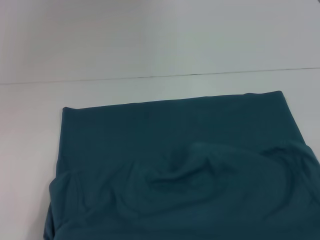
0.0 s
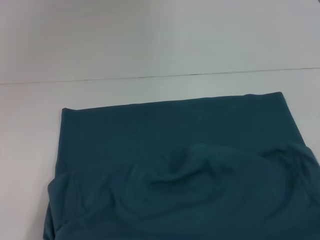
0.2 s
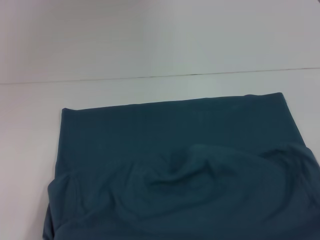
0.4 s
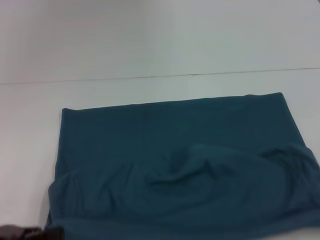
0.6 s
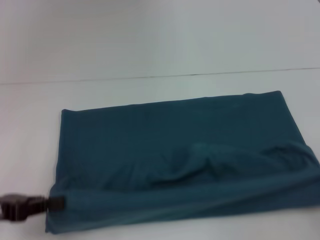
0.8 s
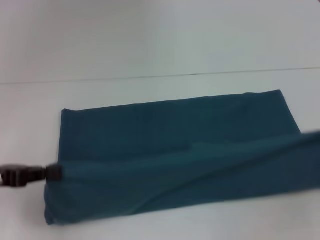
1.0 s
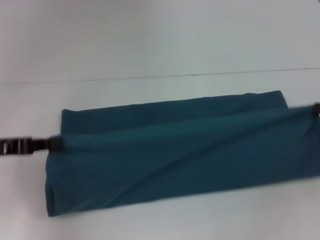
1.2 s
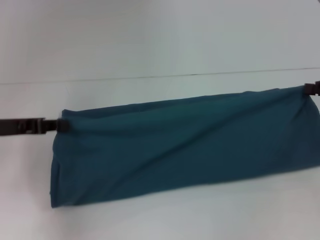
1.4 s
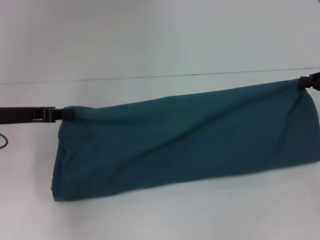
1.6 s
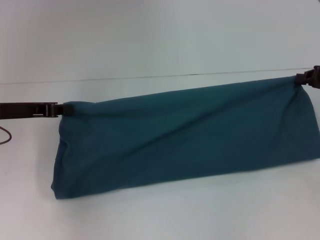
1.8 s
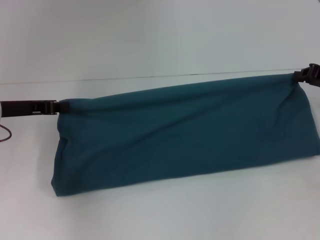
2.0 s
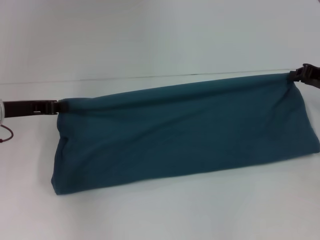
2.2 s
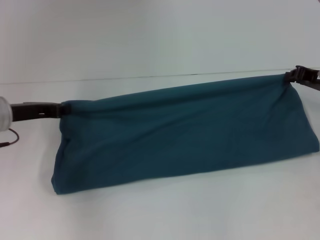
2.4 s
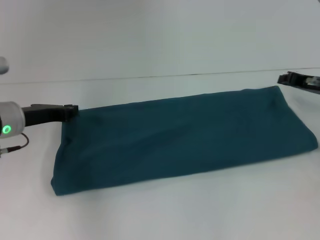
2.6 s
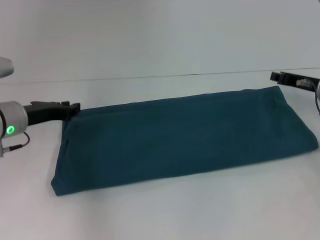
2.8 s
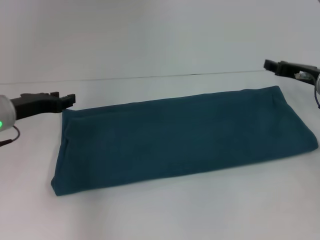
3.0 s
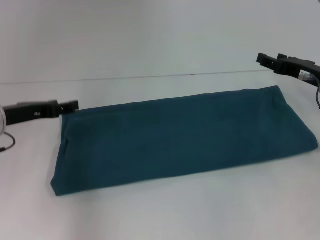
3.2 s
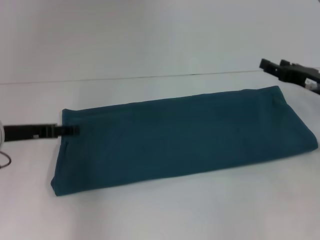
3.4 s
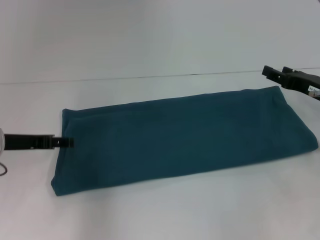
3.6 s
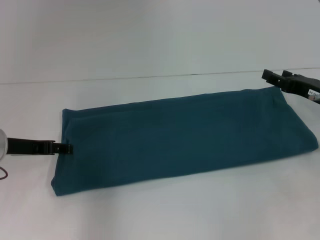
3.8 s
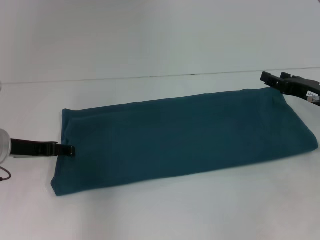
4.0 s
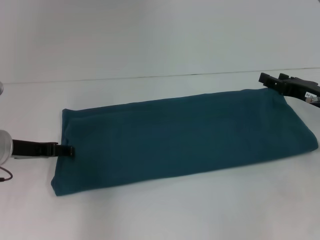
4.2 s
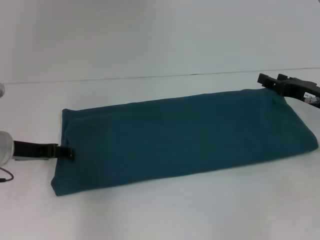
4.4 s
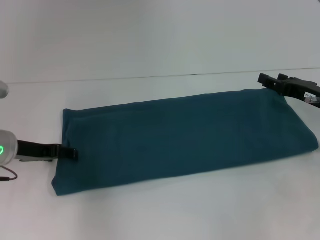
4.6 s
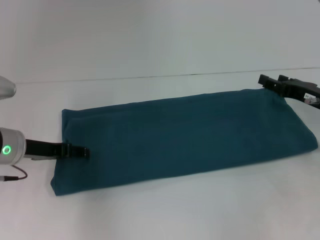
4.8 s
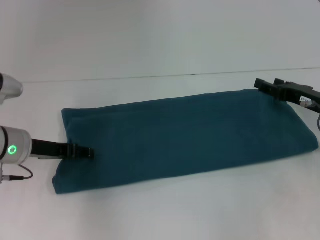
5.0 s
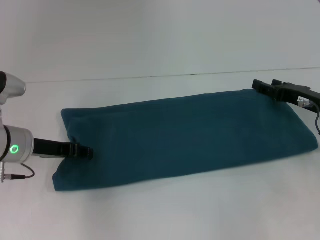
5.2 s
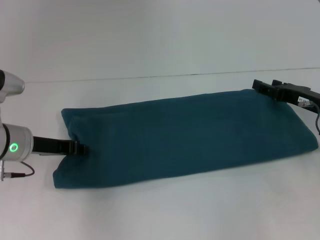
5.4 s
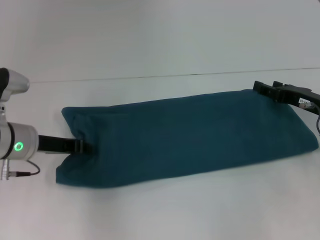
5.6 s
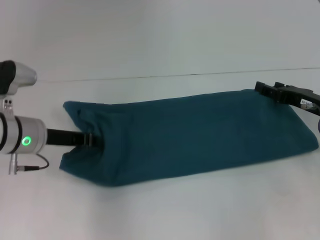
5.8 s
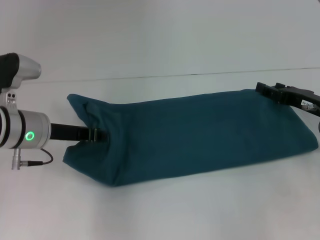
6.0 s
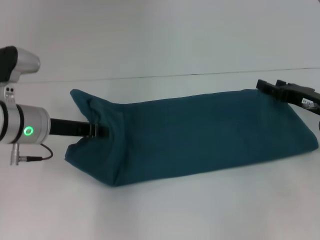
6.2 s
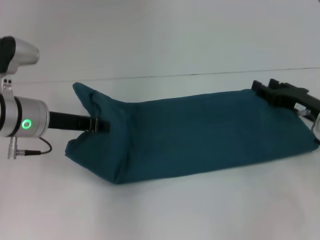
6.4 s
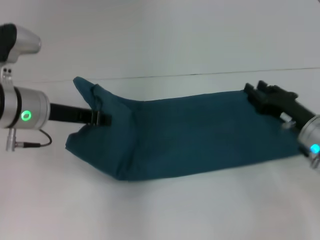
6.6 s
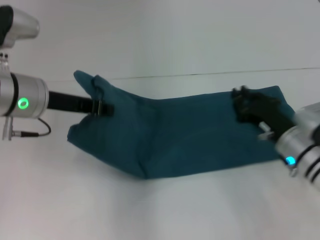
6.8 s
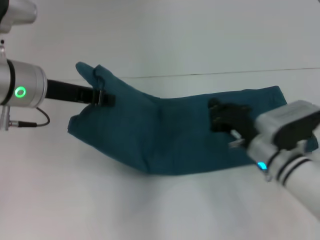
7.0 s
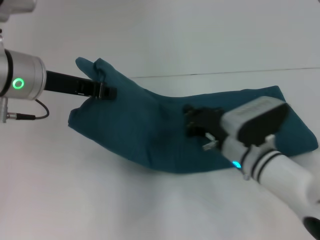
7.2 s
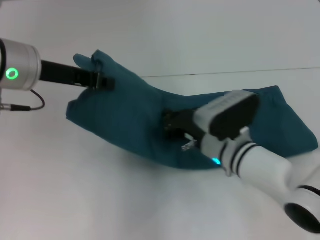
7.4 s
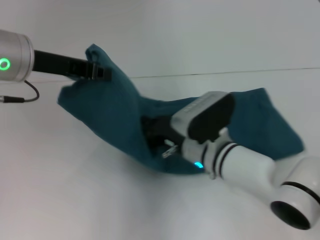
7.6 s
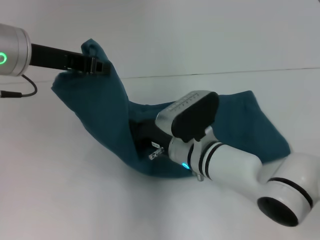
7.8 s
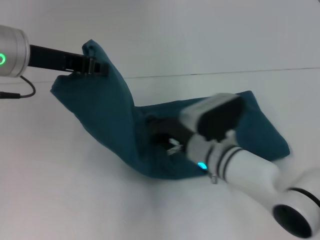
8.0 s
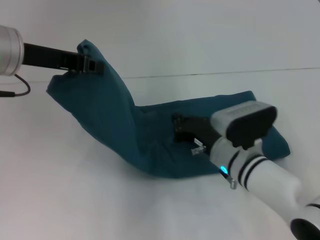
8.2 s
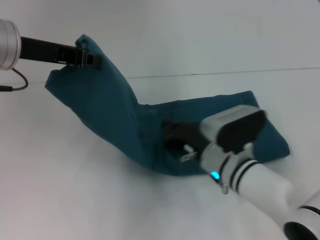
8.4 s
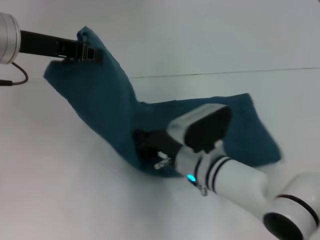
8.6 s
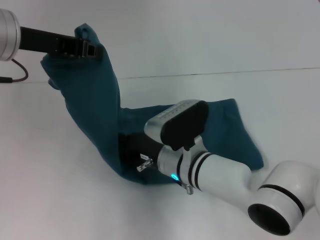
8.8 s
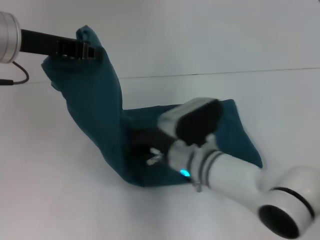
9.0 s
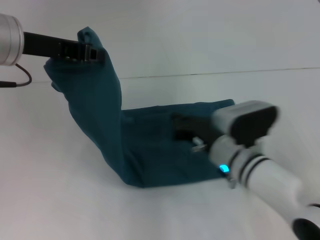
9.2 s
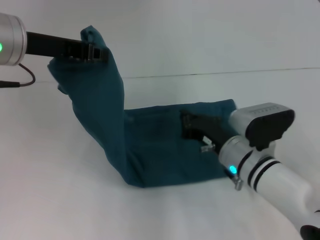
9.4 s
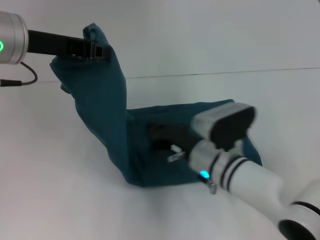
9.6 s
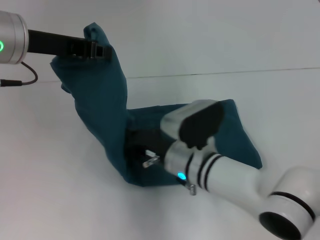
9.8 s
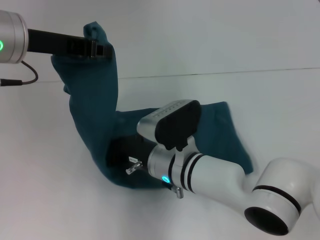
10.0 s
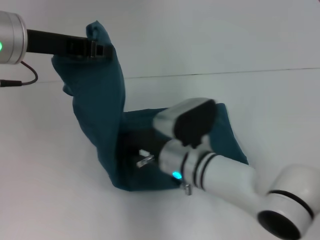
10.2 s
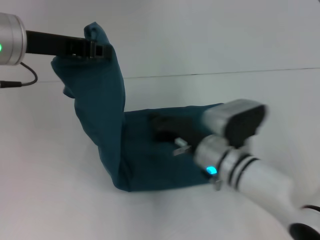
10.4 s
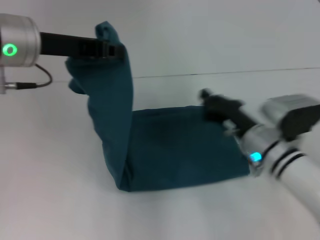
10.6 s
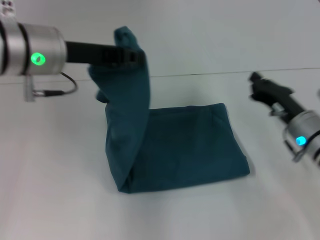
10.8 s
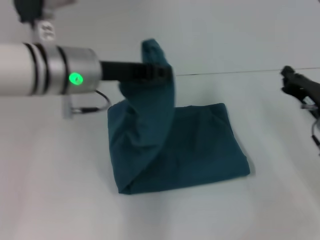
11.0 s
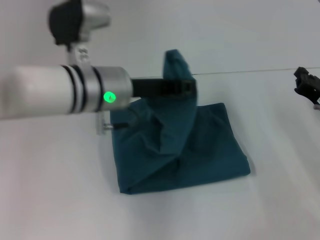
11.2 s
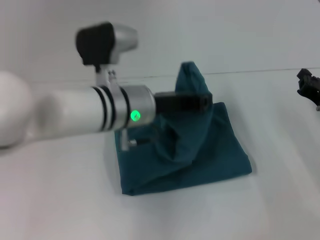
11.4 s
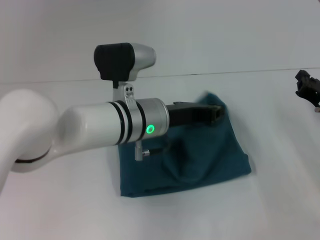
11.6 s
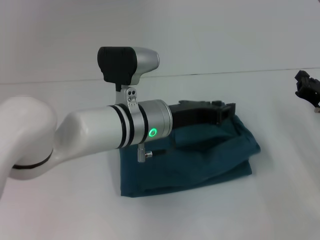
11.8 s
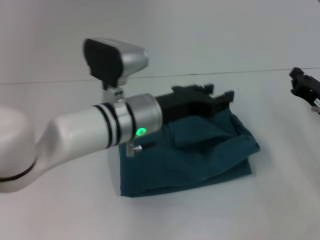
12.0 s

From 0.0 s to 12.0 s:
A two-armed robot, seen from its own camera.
Step, from 0.0 s to 3.0 s: Fold the clothes to the left.
Step, from 0.0 s to 3.0 s: Fold the clothes to the right.
Step, from 3.2 s to 9.0 s: Press the middle of the clothes with your right hand.
Step, from 9.2 s to 11.8 s: Fold the clothes to the left.
From 0.0 s to 1.6 s: The two grippers go some 20 cm forward.
From 1.6 s to 3.0 s: The left gripper opens. Meanwhile the right gripper is displaced to the left by approximately 5 cm.
From 3.0 s to 4.4 s: The right gripper moves approximately 5 cm, and opens its fingers, while the left gripper opens its fingers.
From 4.4 s to 6.0 s: The left gripper heads to the right, covering roughly 5 cm, and closes up.
From 6.0 s to 7.6 s: The left gripper goes roughly 15 cm upward, while the right gripper is displaced to the left by roughly 20 cm, and closes its fingers.
From 9.0 s to 10.4 s: The right gripper swings left and right, some 10 cm each way, with 2 reversals.
From 10.4 s to 12.0 s: The right gripper is displaced to the right by about 20 cm, while the left gripper travels to the right and downward by roughly 20 cm.

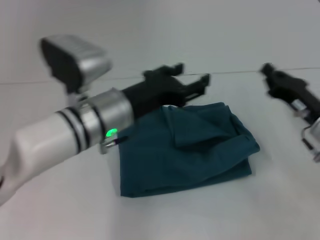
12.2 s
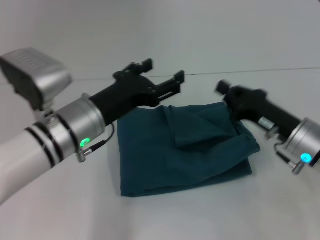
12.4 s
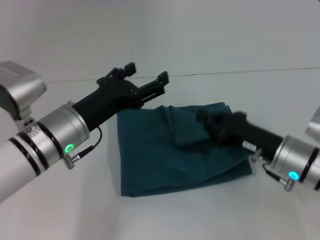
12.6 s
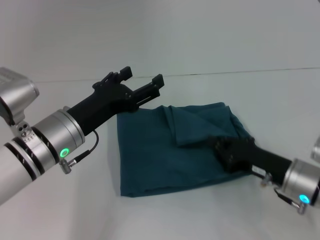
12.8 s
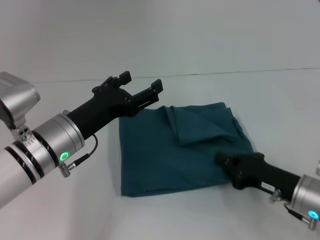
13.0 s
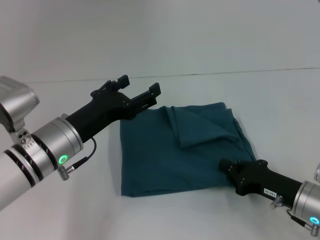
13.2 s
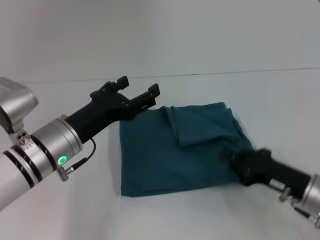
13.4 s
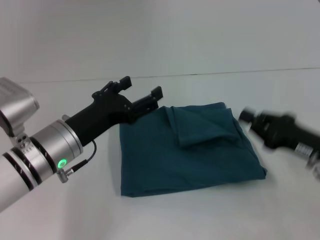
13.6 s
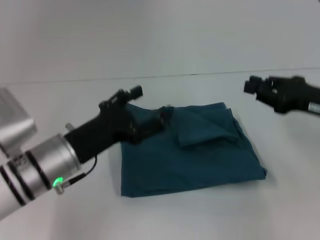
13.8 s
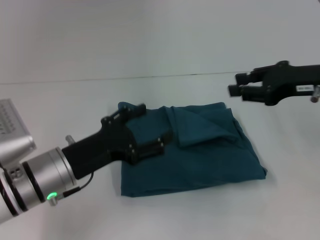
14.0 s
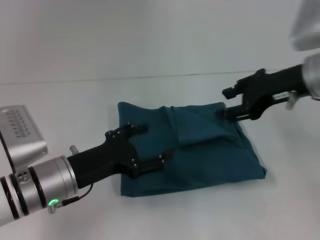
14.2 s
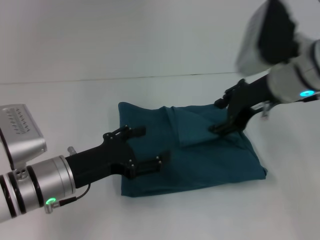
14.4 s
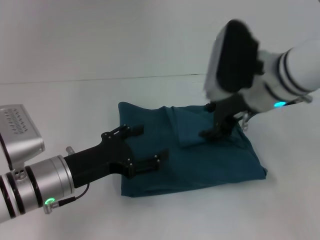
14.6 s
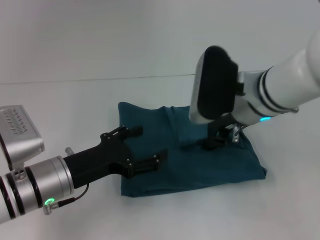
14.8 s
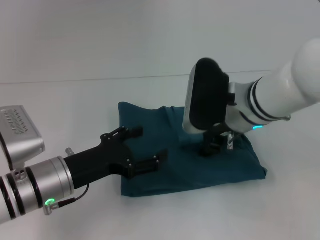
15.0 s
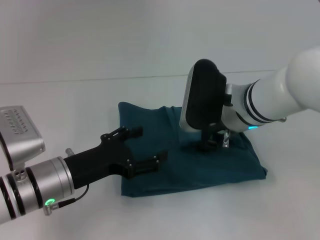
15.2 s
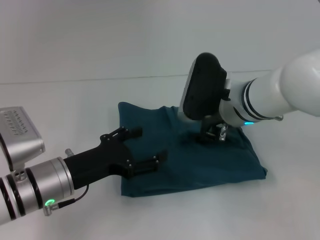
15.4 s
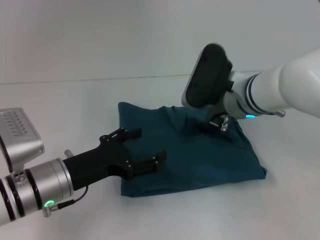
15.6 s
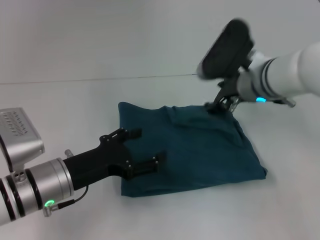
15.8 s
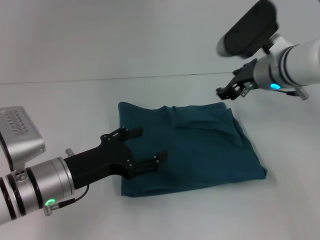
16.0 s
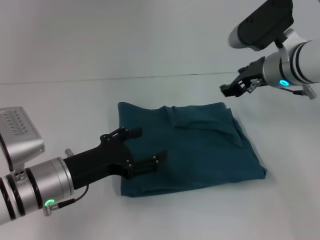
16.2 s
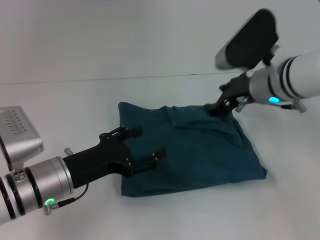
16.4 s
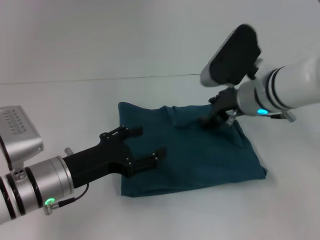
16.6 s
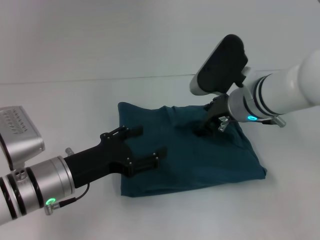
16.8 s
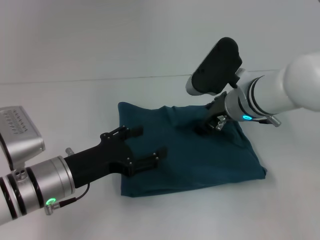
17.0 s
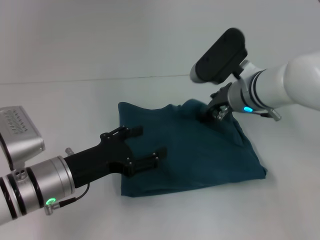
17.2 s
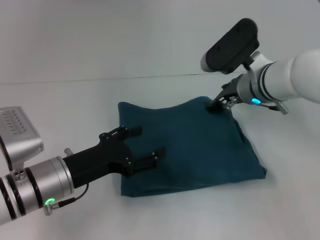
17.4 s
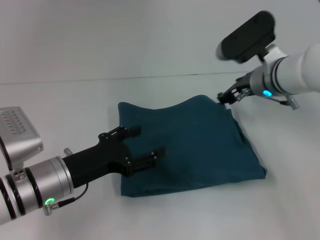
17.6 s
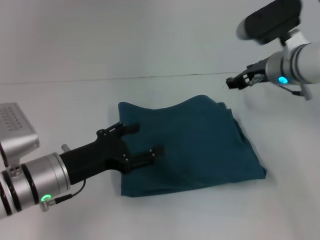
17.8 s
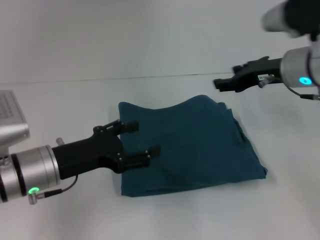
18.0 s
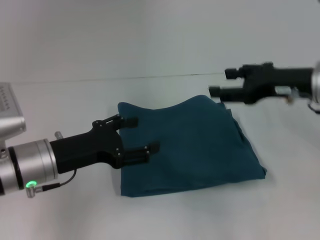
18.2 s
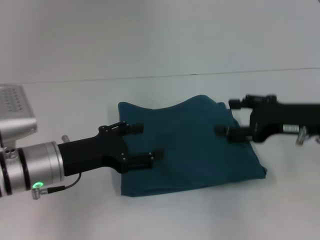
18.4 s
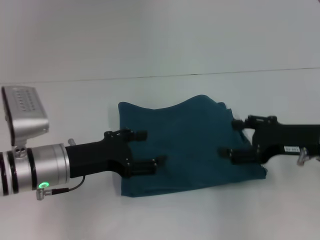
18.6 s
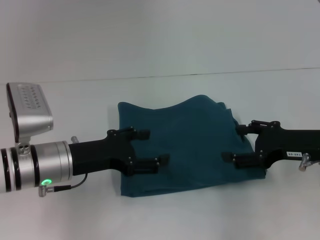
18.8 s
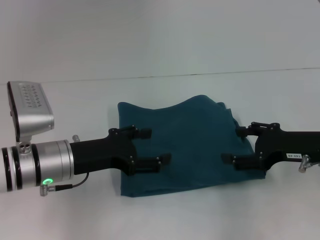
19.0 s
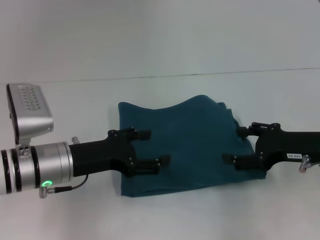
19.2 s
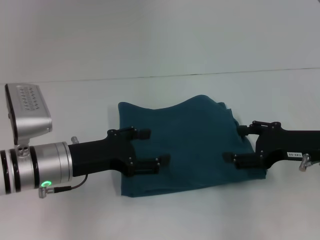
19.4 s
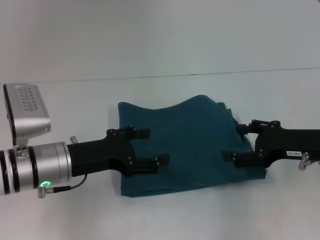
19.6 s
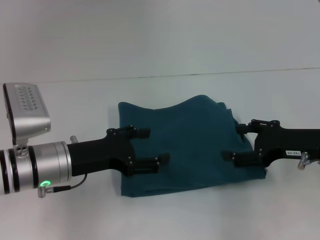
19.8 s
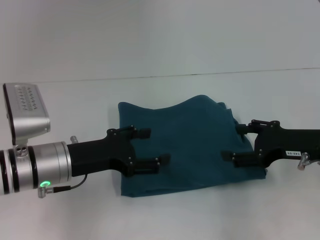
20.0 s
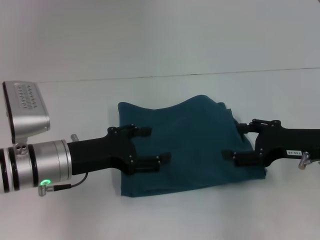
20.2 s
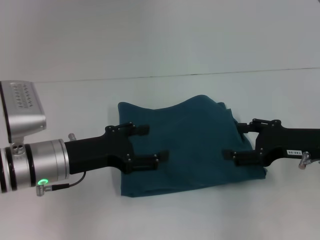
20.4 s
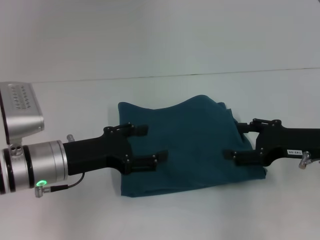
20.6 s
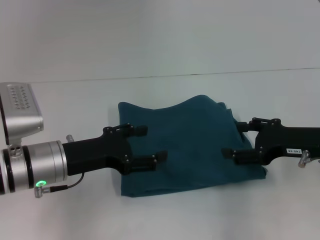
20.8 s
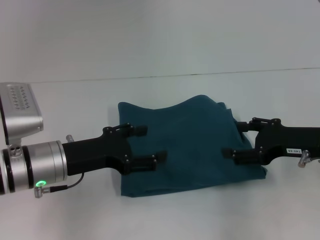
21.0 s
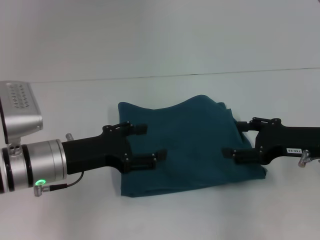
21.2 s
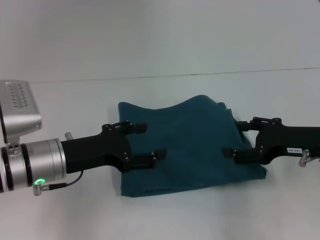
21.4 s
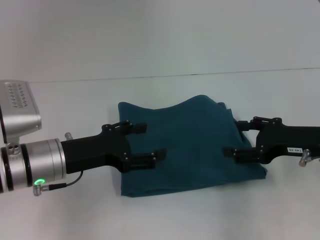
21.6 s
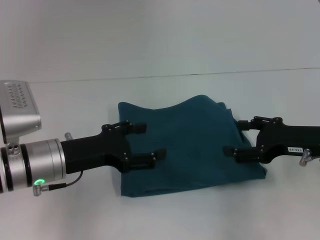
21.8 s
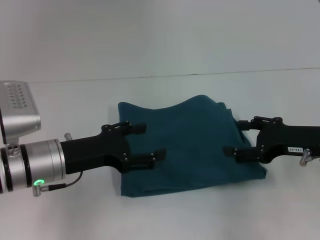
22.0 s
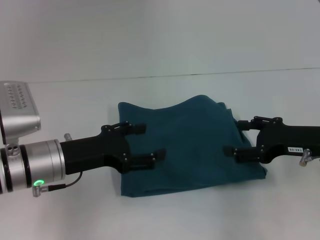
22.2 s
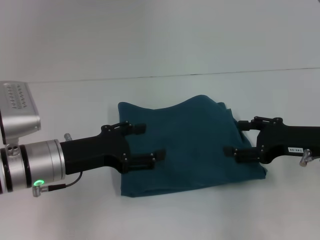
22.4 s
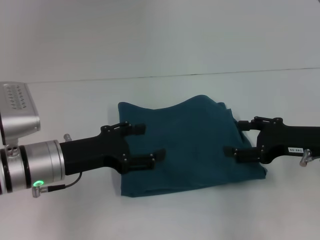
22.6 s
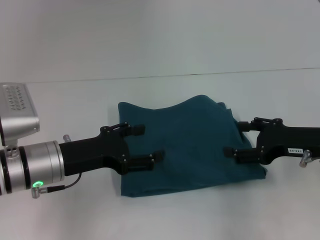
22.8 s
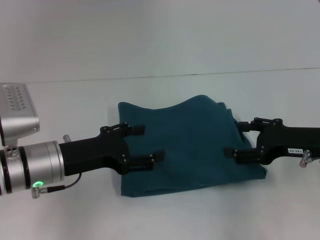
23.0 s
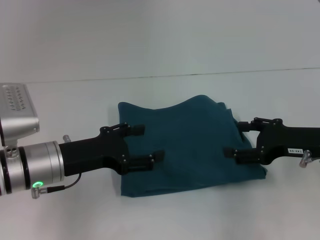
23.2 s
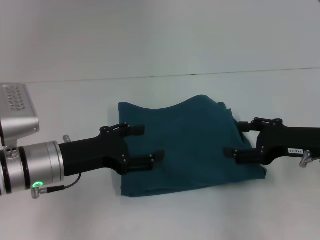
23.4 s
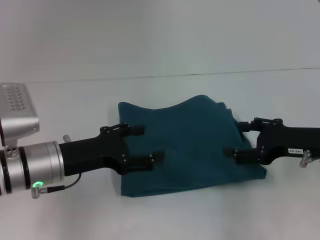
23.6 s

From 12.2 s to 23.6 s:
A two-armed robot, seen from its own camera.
From 12.2 s to 13.6 s: The left gripper moves to the left, roughly 5 cm, and opens. The right gripper moves backward, roughly 5 cm.
From 13.6 s to 15.0 s: The right gripper heads to the left, forward and upward, covering roughly 20 cm, and opens up.
From 15.0 s to 16.4 s: The right gripper moves some 5 cm.
From 16.4 s to 17.8 s: There are only small adjustments of the grippers.
From 17.8 s to 19.4 s: The right gripper shifts about 15 cm backward and to the right.
From 19.4 s to 23.6 s: Both grippers stay put.
